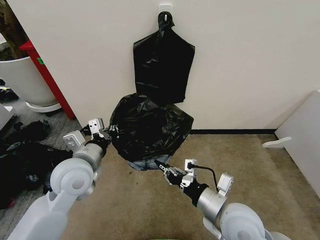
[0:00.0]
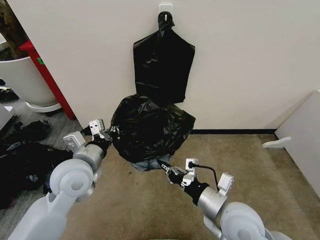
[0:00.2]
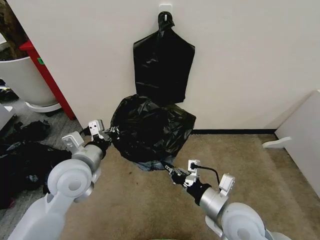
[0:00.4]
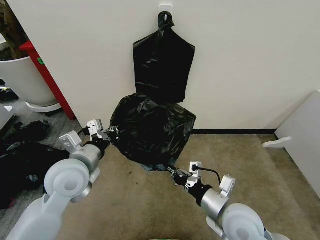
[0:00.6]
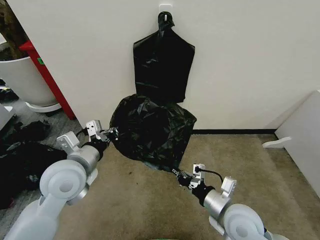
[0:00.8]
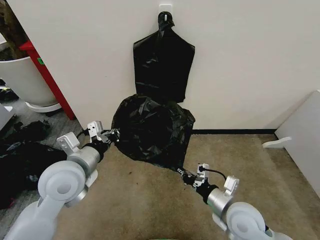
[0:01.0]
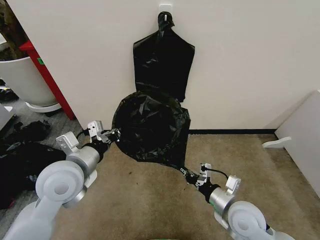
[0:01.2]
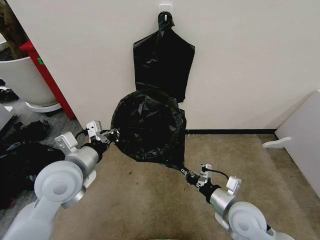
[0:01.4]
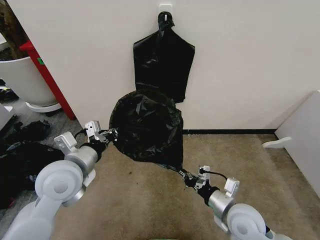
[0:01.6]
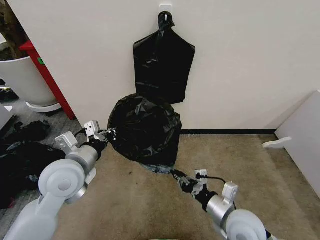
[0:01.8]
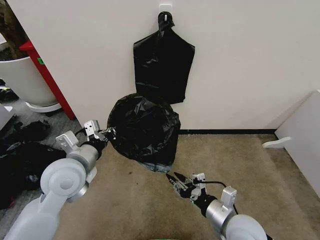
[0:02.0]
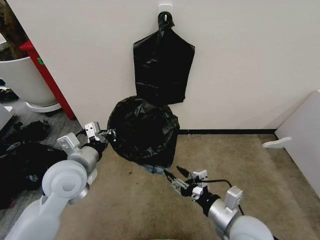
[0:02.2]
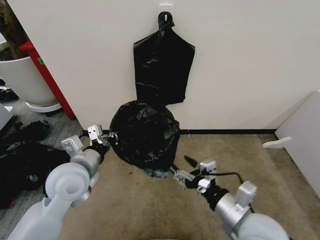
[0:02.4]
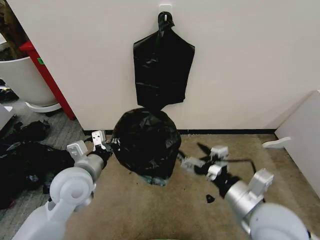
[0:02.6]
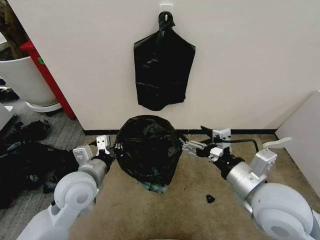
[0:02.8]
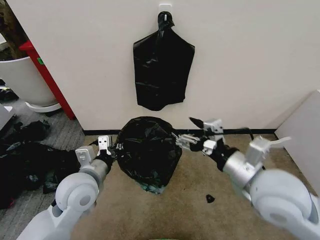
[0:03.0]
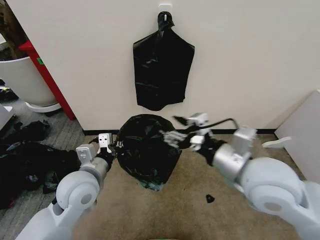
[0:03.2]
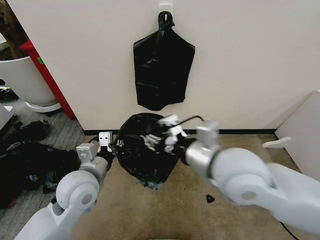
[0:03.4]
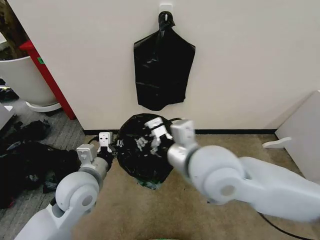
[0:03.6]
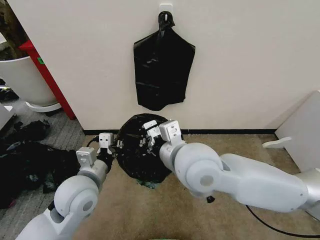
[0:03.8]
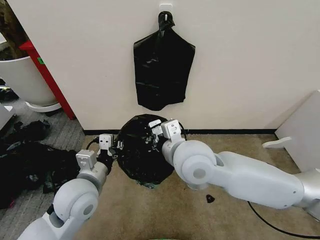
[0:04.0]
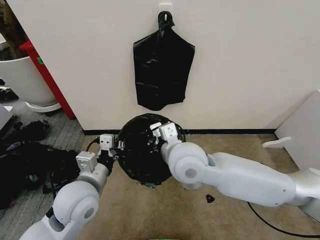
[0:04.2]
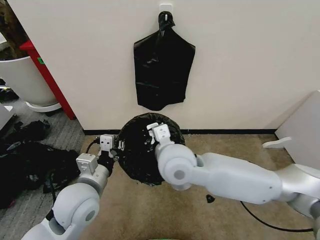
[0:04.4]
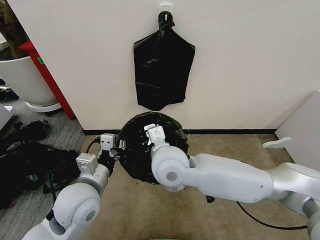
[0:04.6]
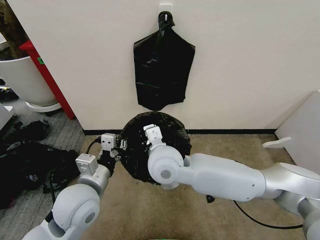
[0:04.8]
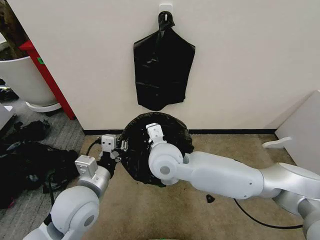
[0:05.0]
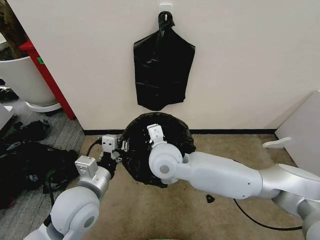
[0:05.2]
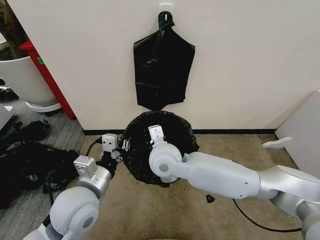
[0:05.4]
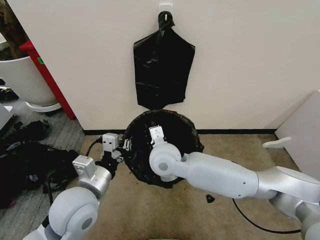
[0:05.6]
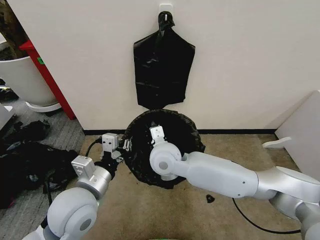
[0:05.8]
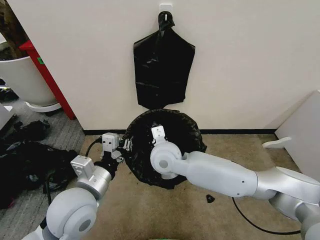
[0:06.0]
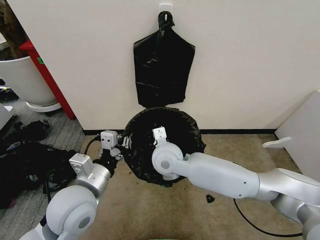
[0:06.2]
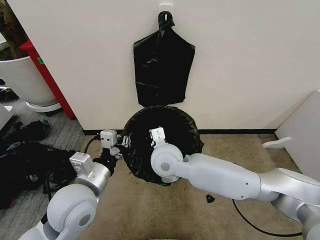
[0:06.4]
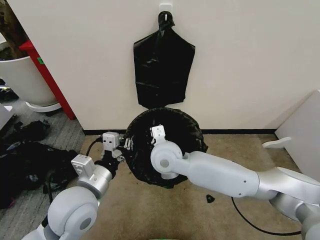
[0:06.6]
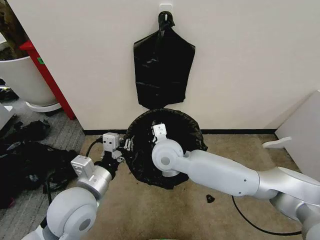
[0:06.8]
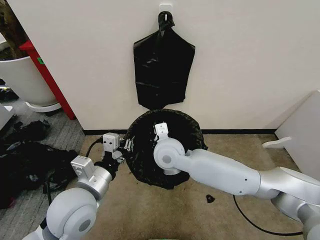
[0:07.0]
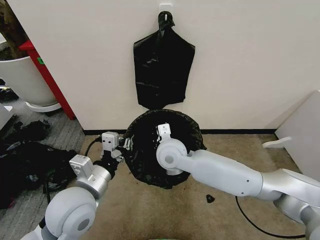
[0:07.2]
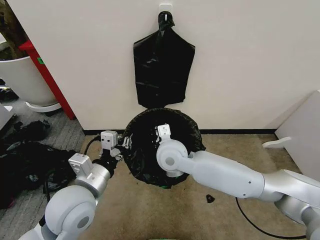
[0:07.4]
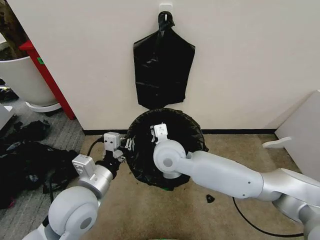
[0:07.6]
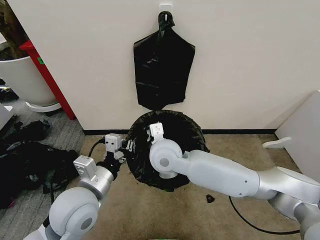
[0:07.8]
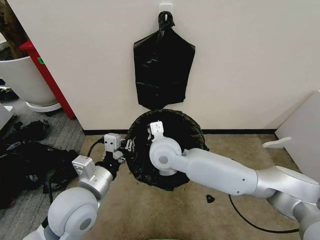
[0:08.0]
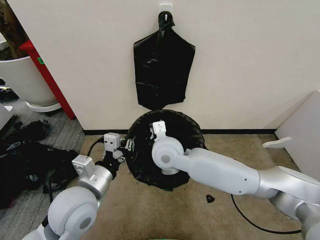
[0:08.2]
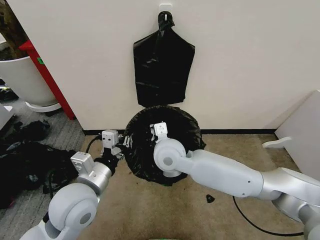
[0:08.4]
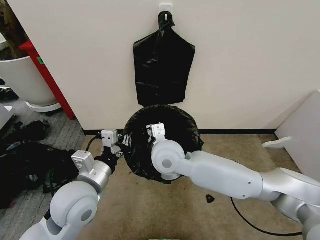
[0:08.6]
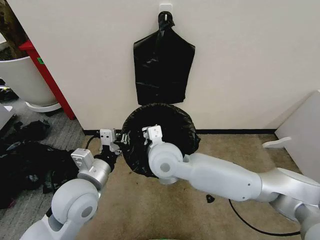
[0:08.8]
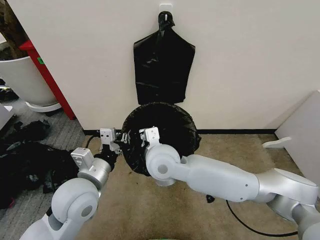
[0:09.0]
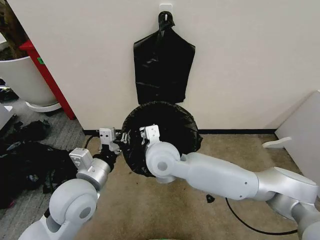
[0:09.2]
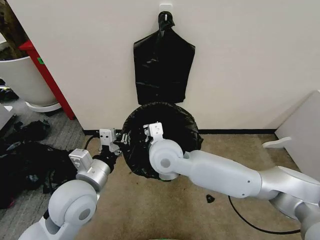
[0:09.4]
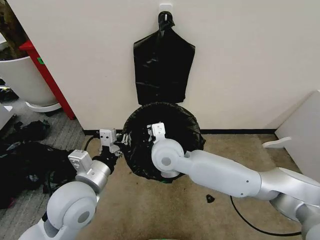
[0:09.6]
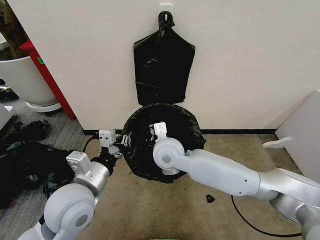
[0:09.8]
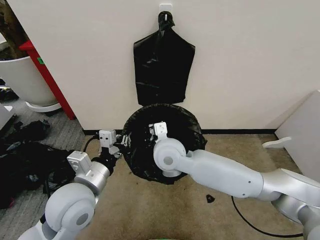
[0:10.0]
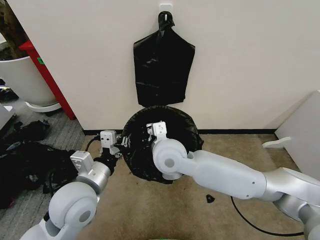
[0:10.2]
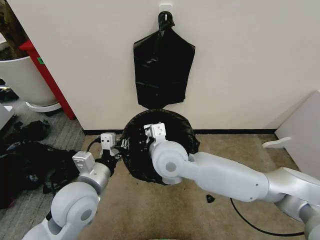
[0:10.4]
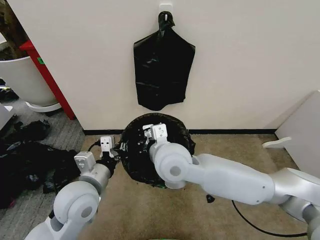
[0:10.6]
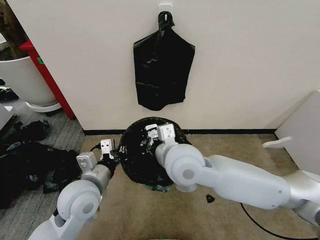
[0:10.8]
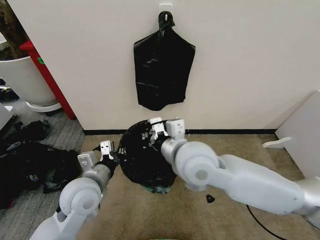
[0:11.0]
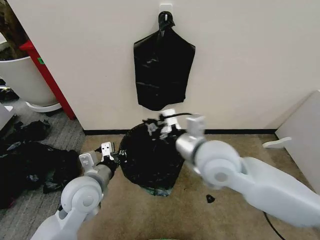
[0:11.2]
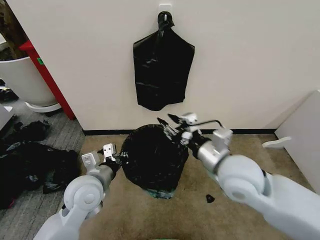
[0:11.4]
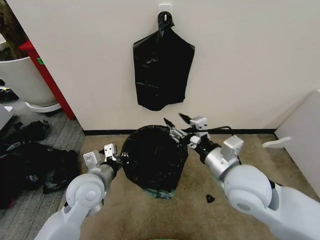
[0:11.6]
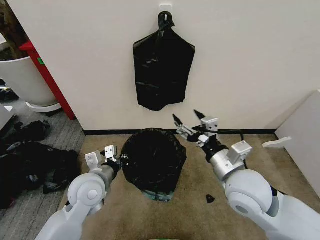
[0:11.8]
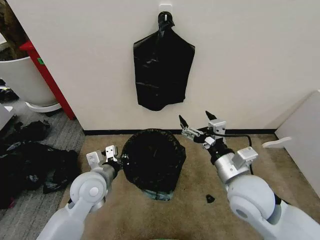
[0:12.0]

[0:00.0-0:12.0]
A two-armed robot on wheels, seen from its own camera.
Task of the whole recording: Place the garbage bag over the trash bin.
0.0 to 1.6 s: The right gripper heads downward, covering about 5 cm.
1.6 to 3.0 s: The left gripper ends up roughly 5 cm from where it was; the right gripper is displaced upward by some 20 cm, and opens up.
3.0 to 4.4 s: The right gripper travels to the left and forward by about 20 cm, and closes.
4.4 to 6.0 s: The right gripper heads downward and forward, covering about 10 cm.
6.0 to 10.4 s: The grippers move only a little.
10.4 to 12.0 s: The right gripper is displaced to the right and backward by roughly 20 cm, and opens up. The left gripper goes roughly 10 cm forward and downward.

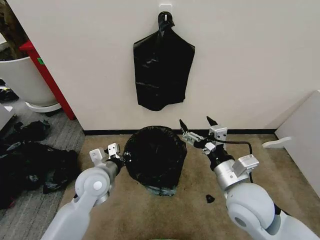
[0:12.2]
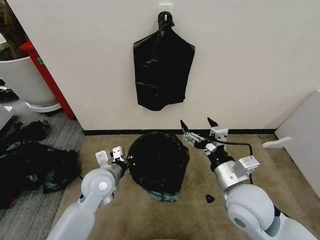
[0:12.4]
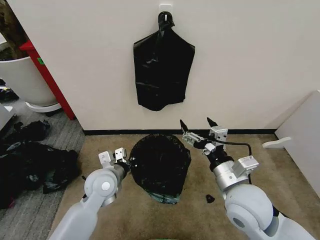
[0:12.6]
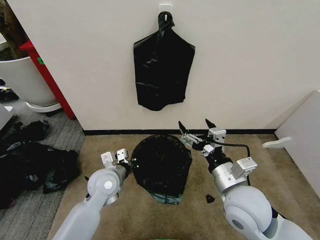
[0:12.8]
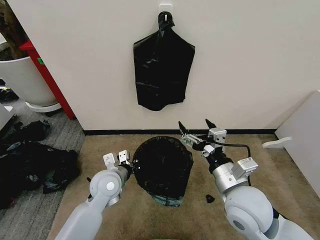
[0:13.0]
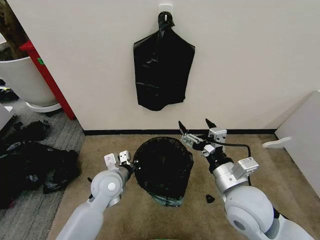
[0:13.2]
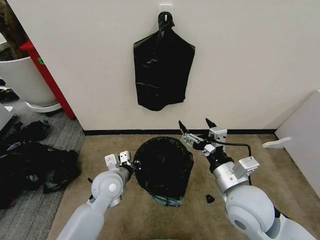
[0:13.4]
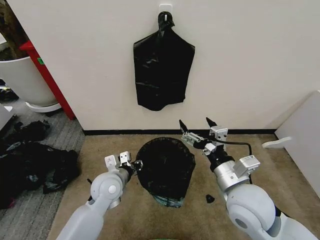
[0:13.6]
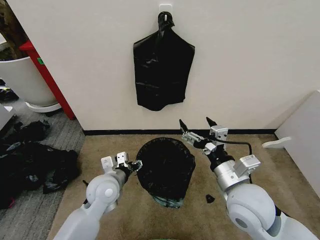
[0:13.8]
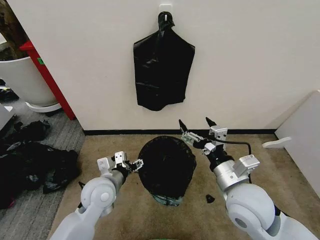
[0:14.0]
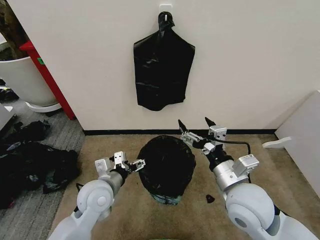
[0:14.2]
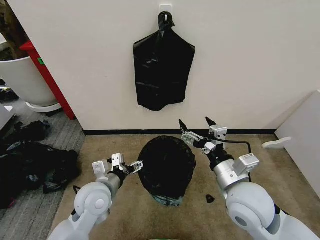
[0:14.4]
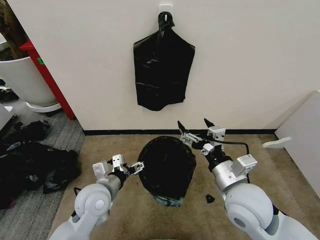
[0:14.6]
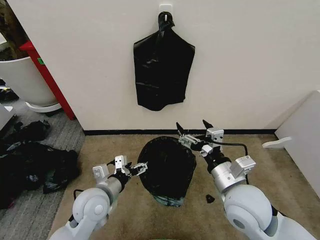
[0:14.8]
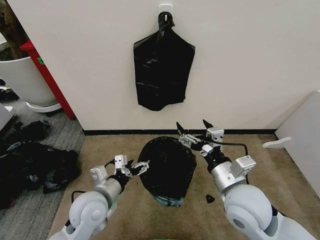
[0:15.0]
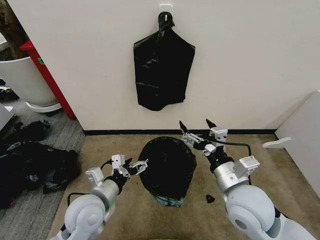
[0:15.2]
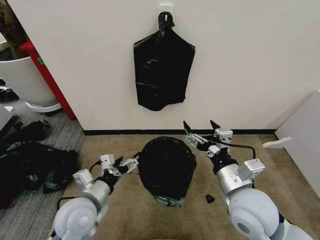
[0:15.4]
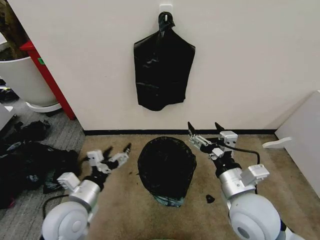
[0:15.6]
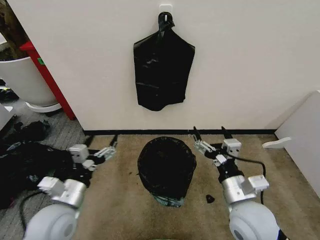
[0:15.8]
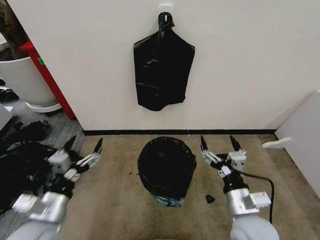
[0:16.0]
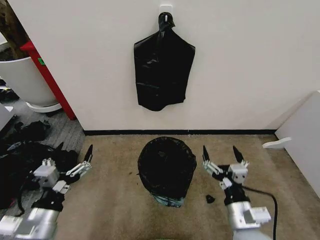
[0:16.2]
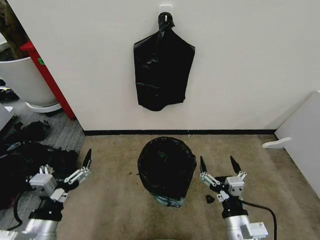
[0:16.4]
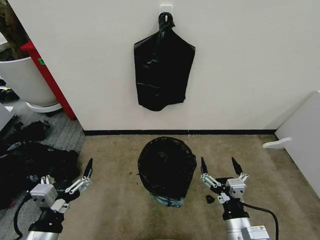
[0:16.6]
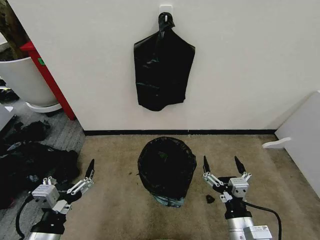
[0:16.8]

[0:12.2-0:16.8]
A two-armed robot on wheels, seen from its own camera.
Task of the whole recording: Place the garbage bag over the trash bin.
12.2 to 13.8 s: The left gripper opens up.
13.8 to 15.2 s: The left gripper travels backward by about 10 cm, and opens up.
15.2 to 16.8 s: The right gripper goes approximately 15 cm downward and backward. Meanwhile the left gripper travels backward and to the left by about 15 cm.

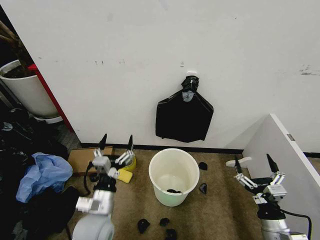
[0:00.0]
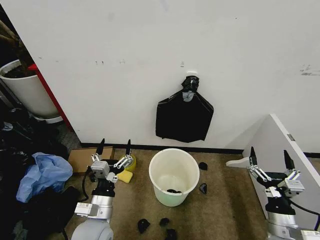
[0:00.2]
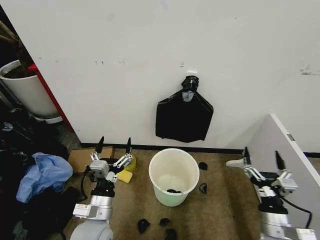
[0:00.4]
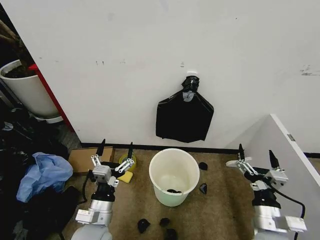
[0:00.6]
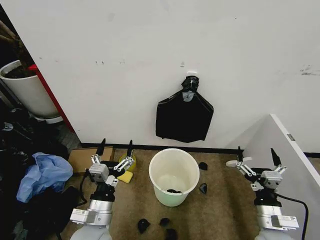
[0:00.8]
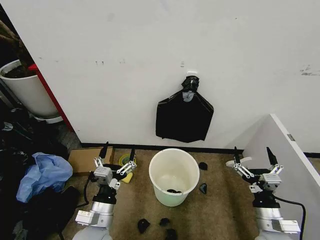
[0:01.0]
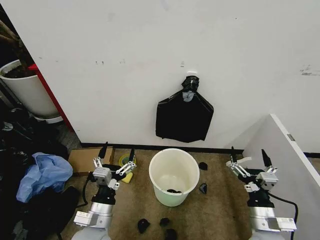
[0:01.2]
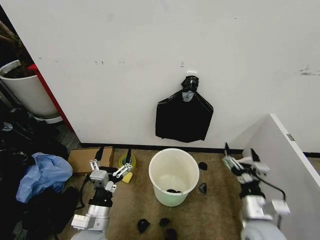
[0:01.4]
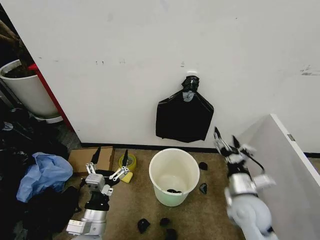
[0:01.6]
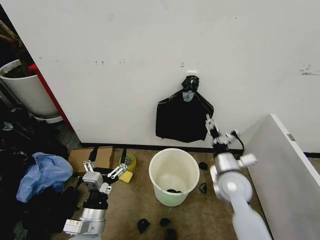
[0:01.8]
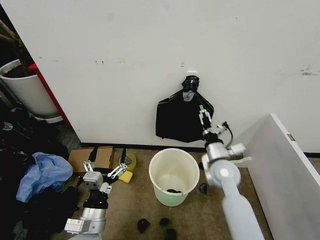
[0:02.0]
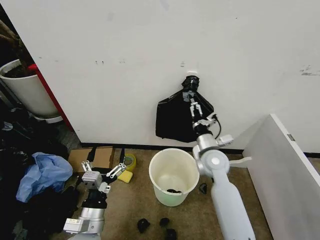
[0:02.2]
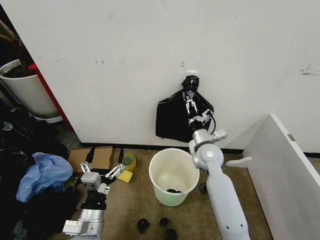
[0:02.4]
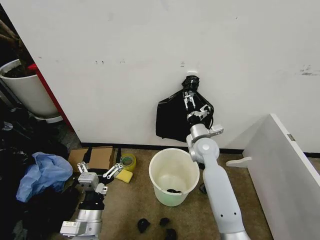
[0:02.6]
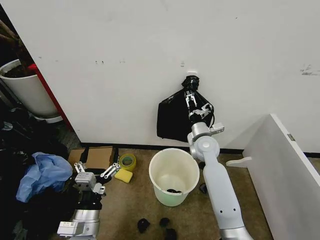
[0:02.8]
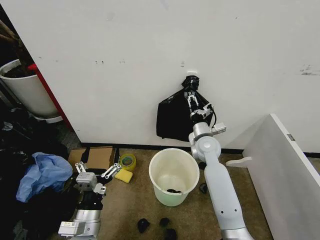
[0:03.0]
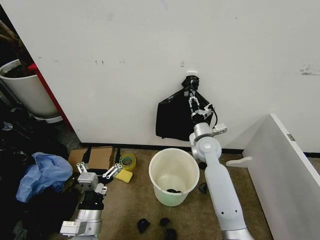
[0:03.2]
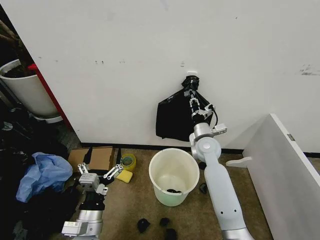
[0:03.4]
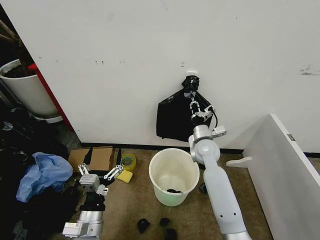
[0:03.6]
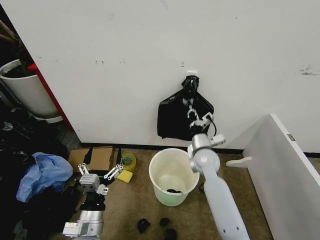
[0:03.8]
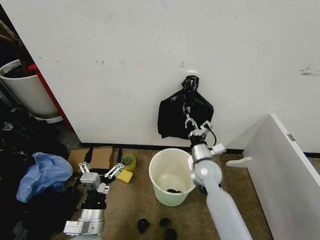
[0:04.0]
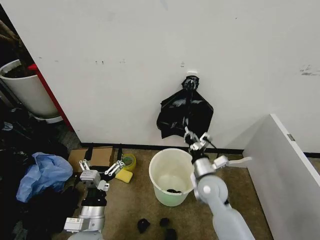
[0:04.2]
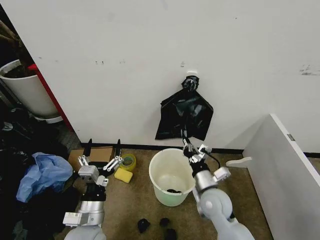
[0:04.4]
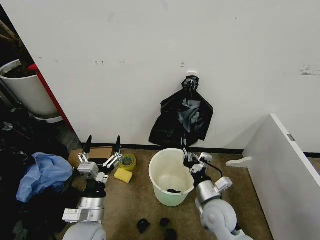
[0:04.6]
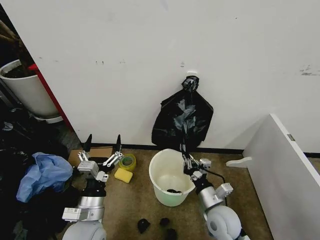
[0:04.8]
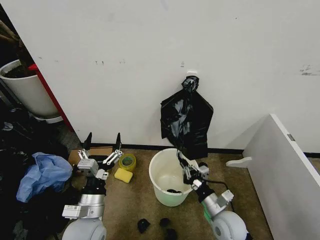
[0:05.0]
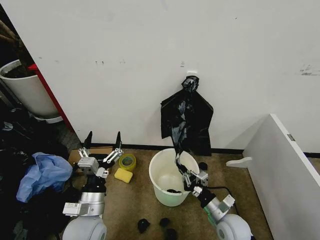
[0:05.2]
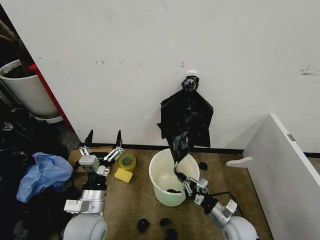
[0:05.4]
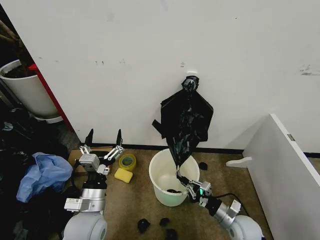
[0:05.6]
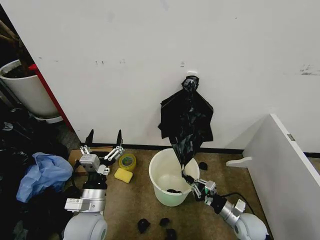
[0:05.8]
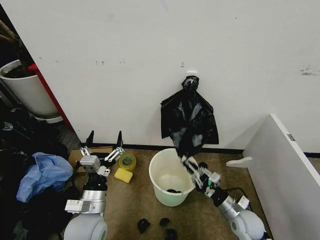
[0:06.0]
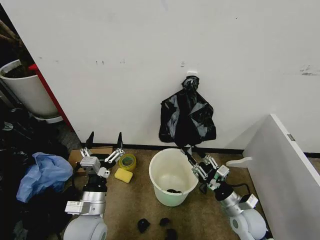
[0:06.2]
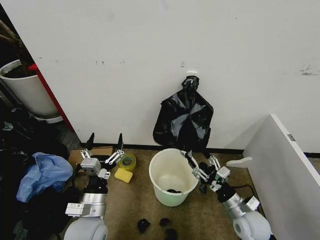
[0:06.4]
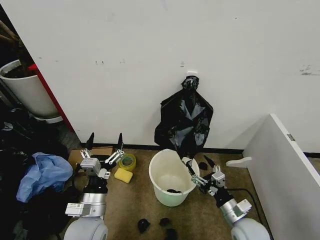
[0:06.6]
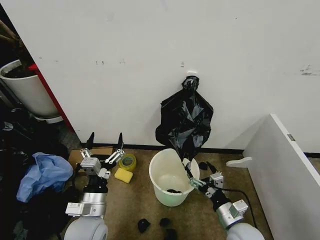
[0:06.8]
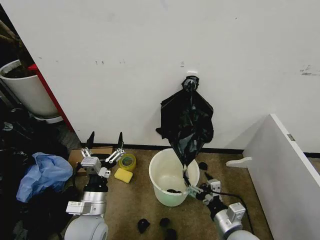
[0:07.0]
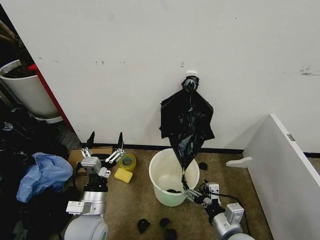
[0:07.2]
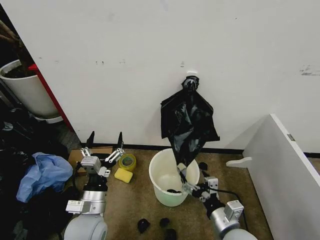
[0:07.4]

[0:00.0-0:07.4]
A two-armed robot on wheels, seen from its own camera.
Task of the whole recording: Place the garbage bag over the trash bin.
1.4 to 3.0 s: The right gripper heads forward, covering some 25 cm, and closes up.
3.0 to 4.4 s: The right gripper goes about 15 cm backward, and closes its fingers.
4.4 to 6.0 s: The right gripper goes roughly 15 cm to the right and downward.
6.0 to 7.4 s: The right gripper moves upward, to the left and backward, roughly 15 cm, and opens.
